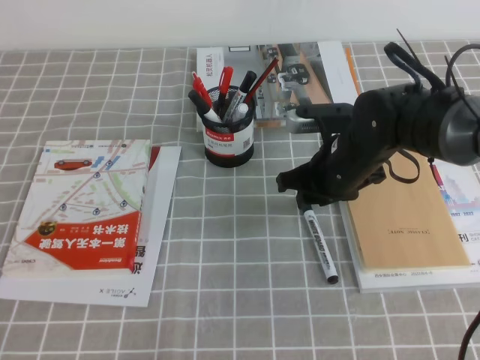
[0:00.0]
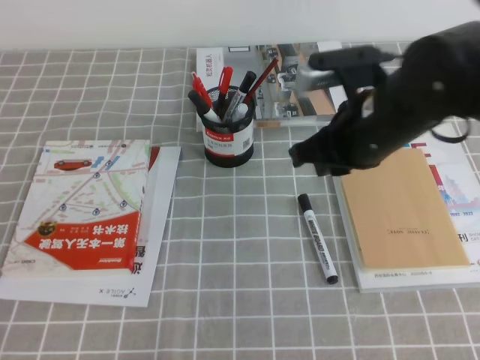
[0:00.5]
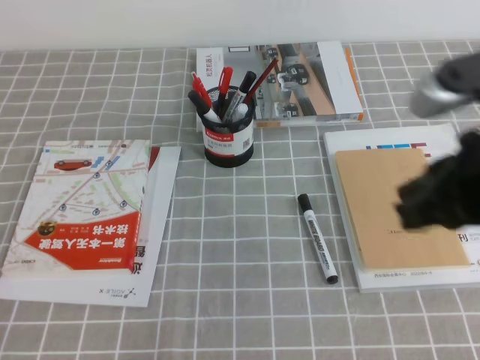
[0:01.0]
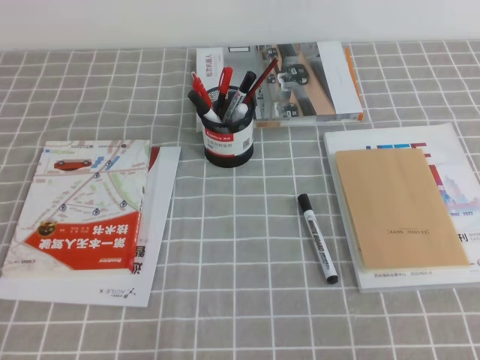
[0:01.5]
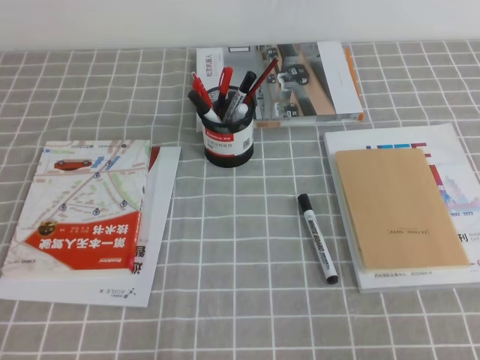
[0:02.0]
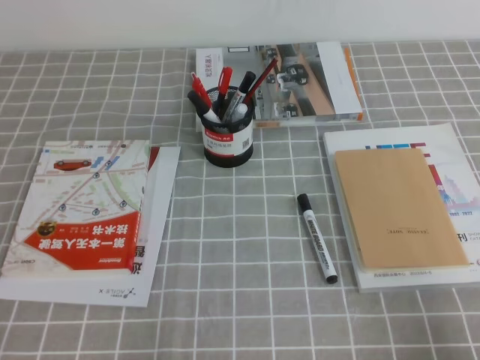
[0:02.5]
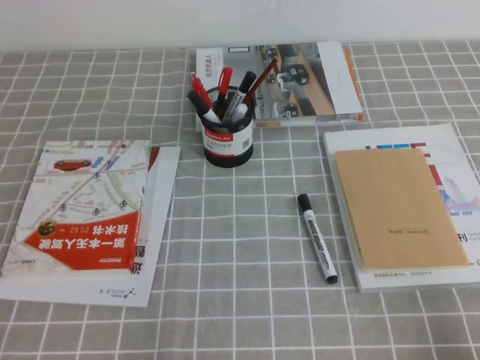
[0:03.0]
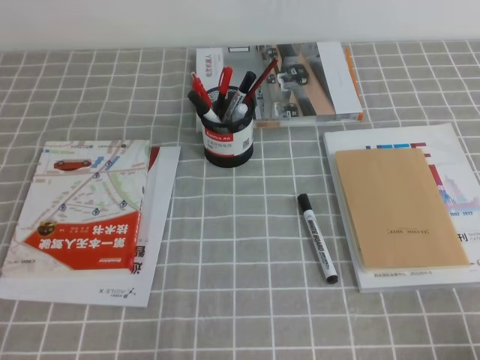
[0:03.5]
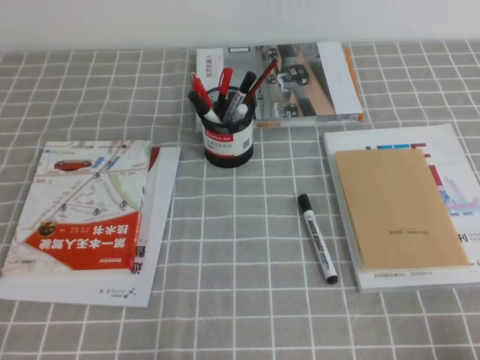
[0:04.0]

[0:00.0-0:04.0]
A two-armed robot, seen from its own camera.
Step, 0:00.0 to 0:04.0: Pick up the pen from the pen holder.
0:00.0 to 0:02.0: The right gripper heads backward and to the right, covering some 35 cm, and closes its fingers.
0:02.0 to 0:04.0: The right gripper travels downward by some 10 cm.

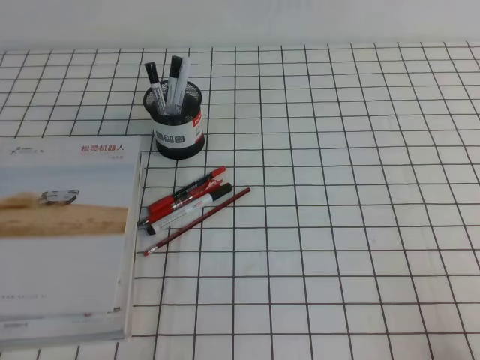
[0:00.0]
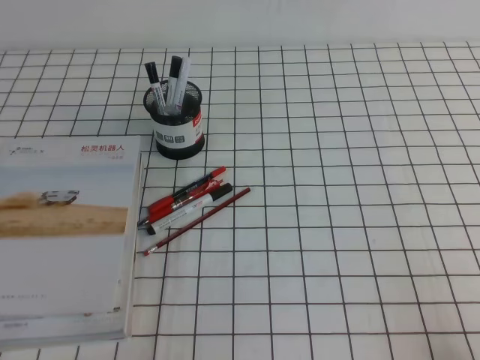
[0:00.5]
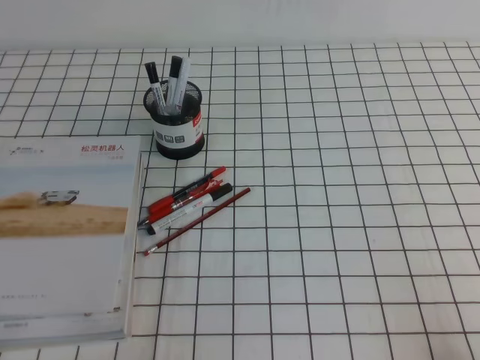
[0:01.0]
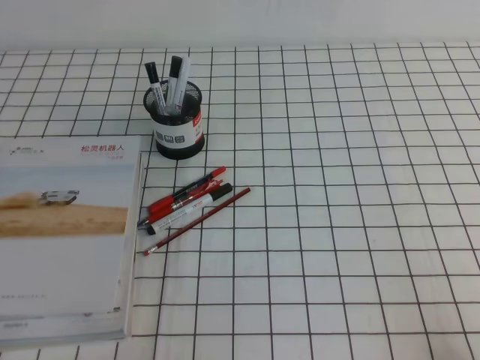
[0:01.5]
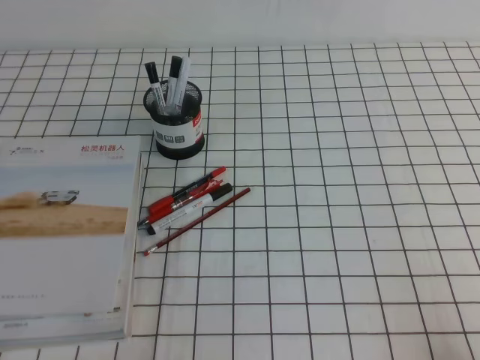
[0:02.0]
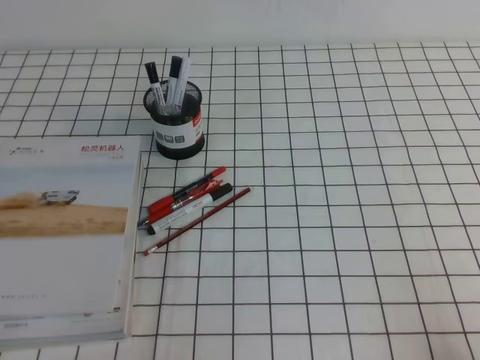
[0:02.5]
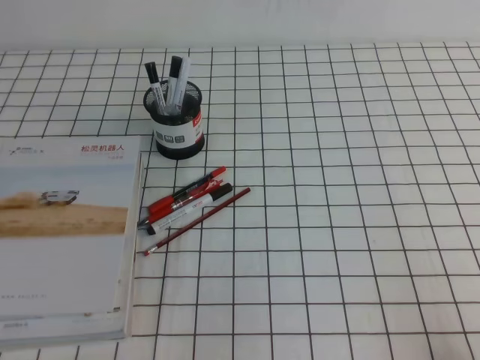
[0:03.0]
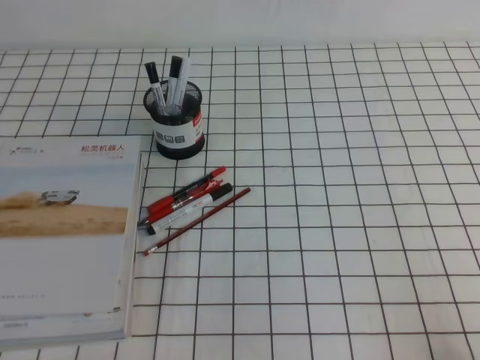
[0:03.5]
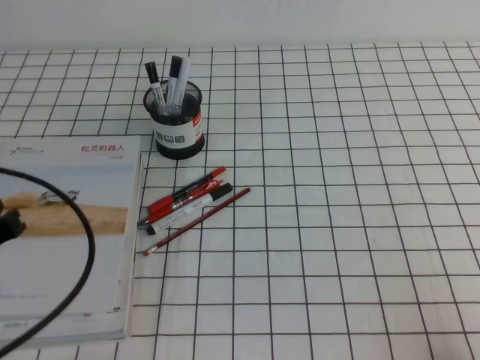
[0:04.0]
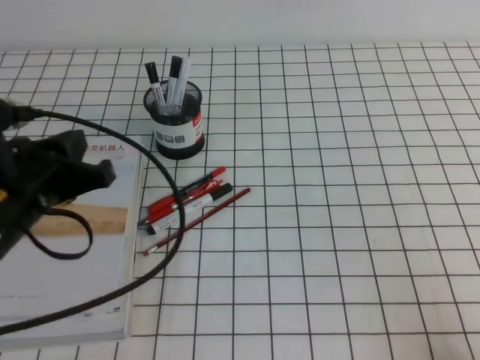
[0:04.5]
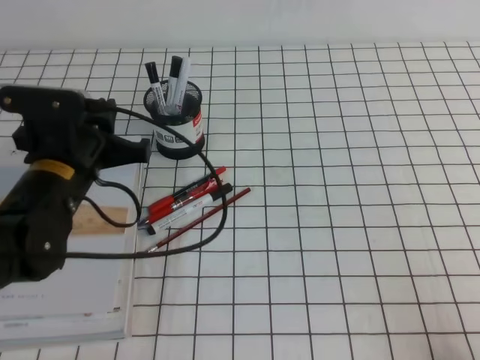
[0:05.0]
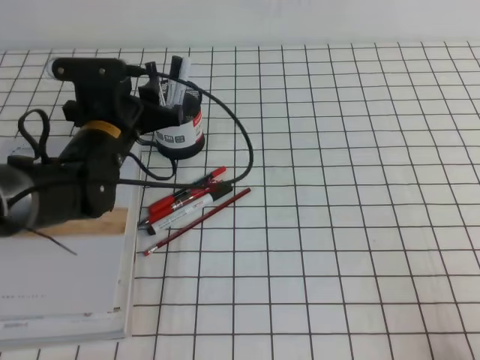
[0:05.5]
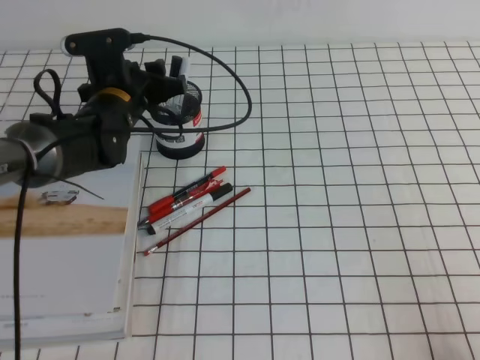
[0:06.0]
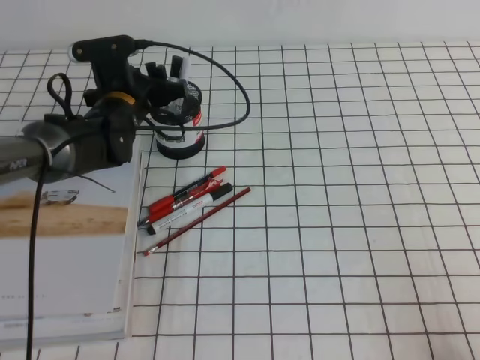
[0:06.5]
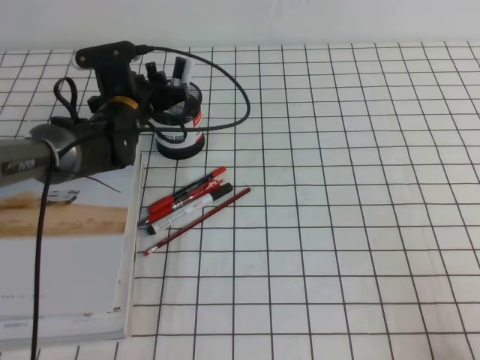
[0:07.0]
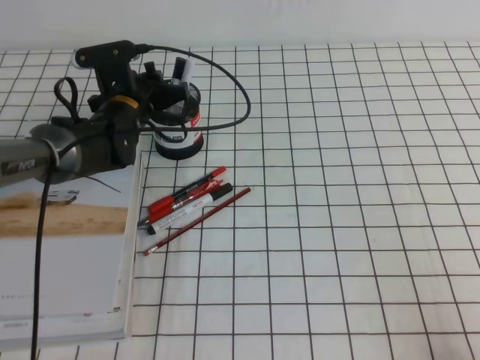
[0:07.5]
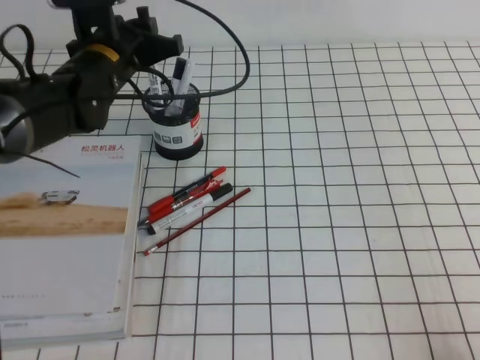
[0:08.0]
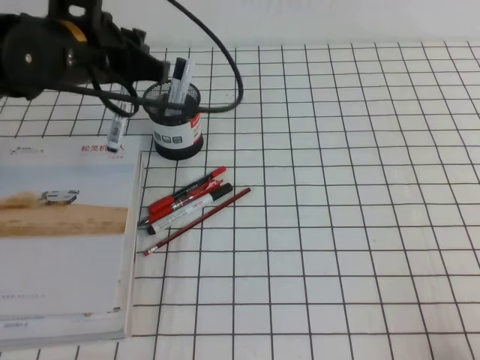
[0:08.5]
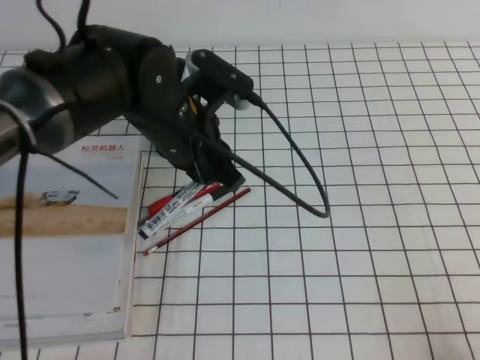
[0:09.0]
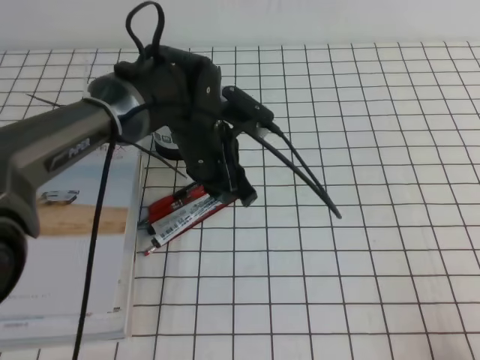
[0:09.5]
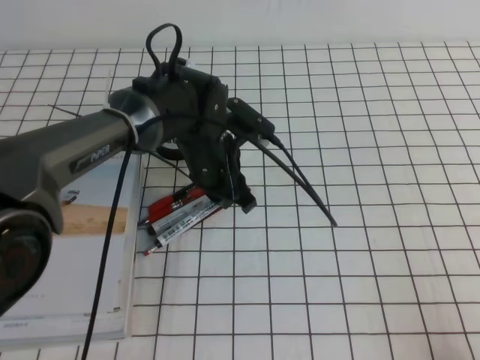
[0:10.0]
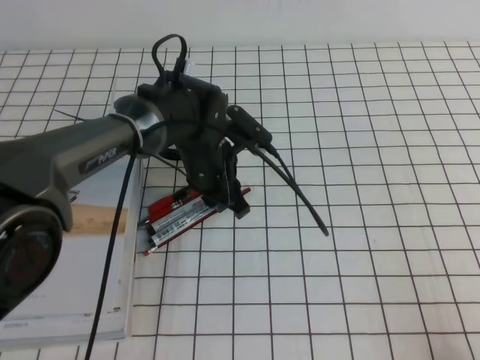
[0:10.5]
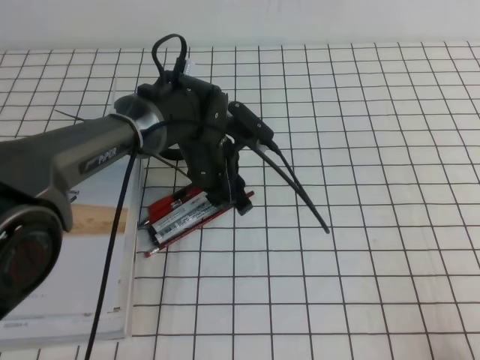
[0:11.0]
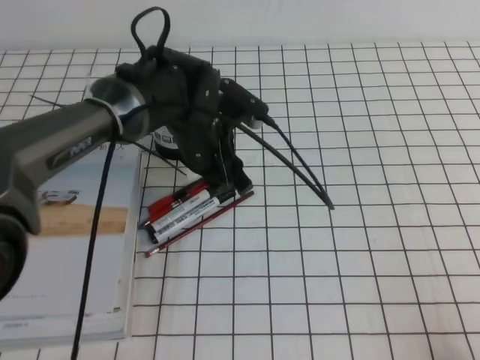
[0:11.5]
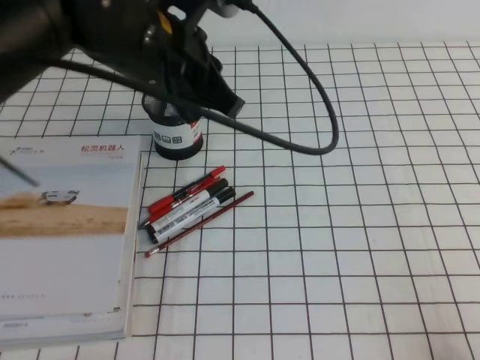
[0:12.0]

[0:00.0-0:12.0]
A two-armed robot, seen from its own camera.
0:00.0 to 0:02.0: Both grippers stay put.
0:02.0 to 0:04.0: The left gripper moves forward and upward, about 15 cm.
0:04.0 to 0:06.0: The left gripper travels forward and to the right by about 30 cm, and opens its fingers.
0:06.0 to 0:08.0: The left gripper goes some 5 cm upward, and closes its fingers.
0:08.0 to 0:10.0: The left gripper shifts roughly 15 cm to the right, downward and backward.
0:10.0 to 0:12.0: The left gripper travels upward by roughly 15 cm.

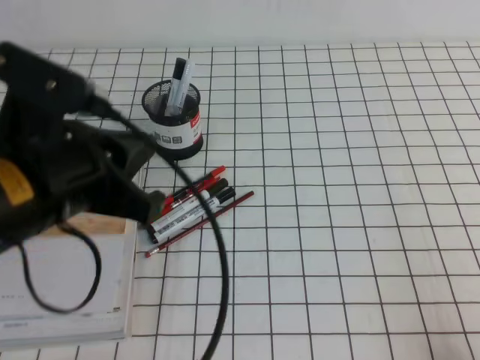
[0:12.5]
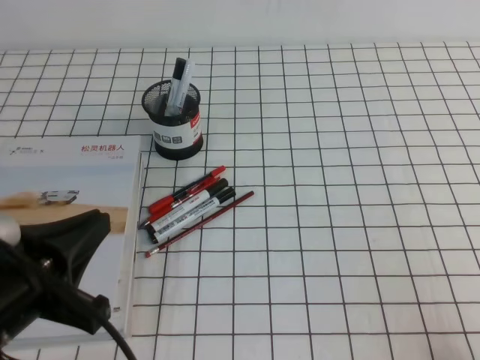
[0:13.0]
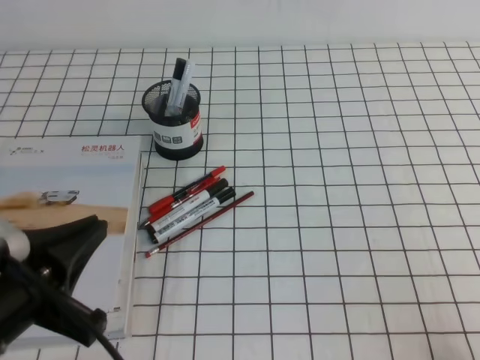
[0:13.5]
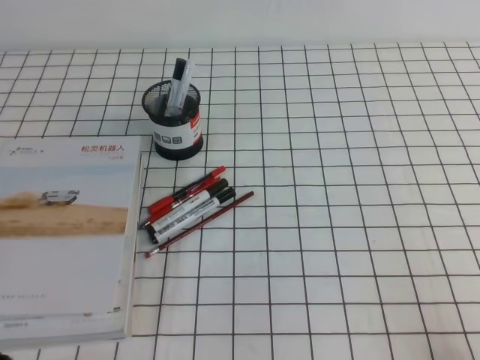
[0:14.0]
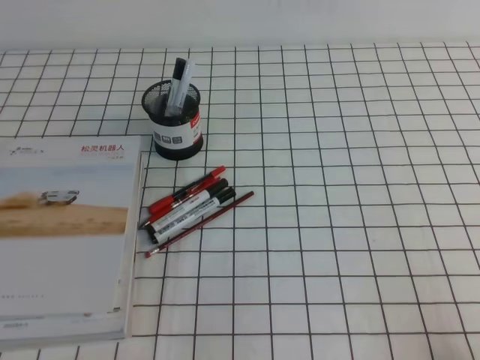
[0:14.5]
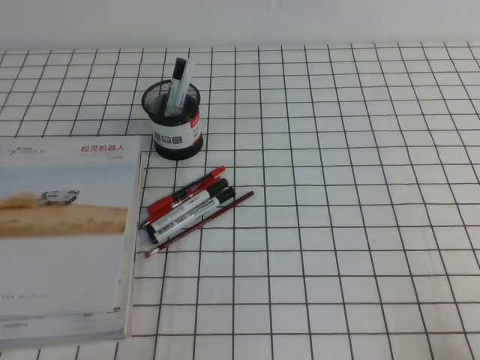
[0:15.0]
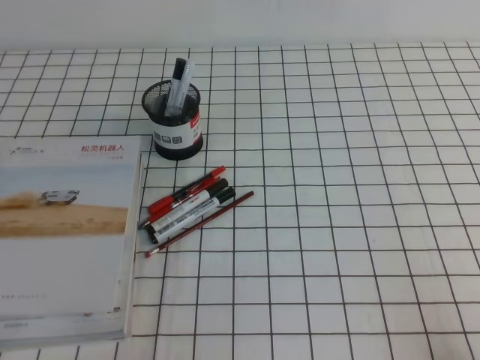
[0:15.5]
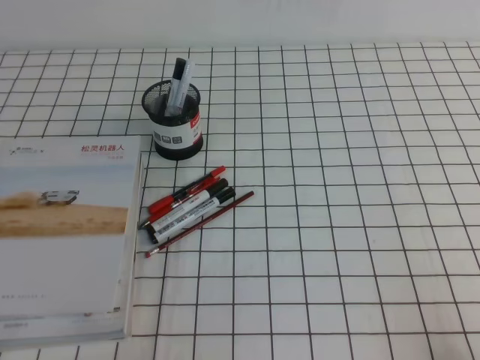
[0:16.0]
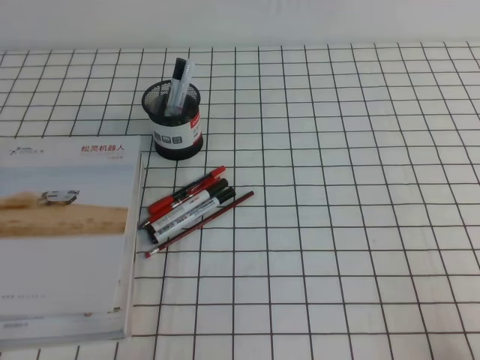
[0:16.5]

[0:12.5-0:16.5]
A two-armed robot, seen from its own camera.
Step, 0:12.5 to 0:16.5: Pick up the pen from the pen holder.
0:12.5 to 0:14.5: The left gripper goes about 25 cm downward, backward and to the left.
